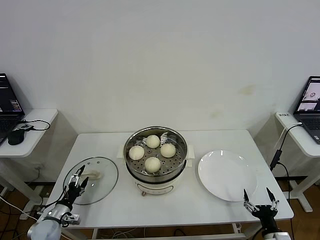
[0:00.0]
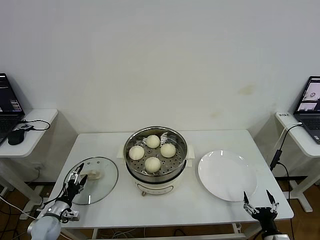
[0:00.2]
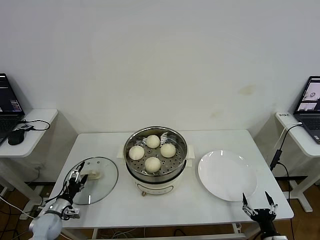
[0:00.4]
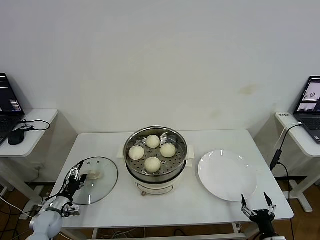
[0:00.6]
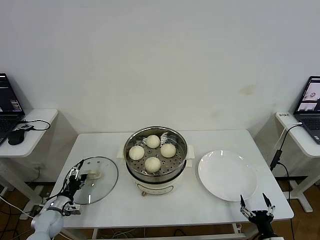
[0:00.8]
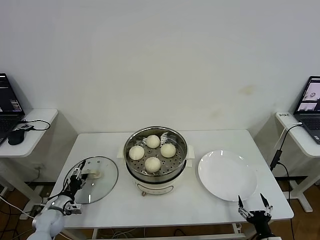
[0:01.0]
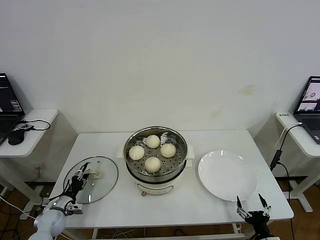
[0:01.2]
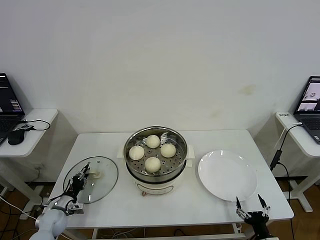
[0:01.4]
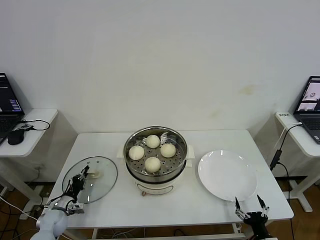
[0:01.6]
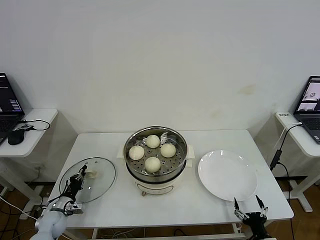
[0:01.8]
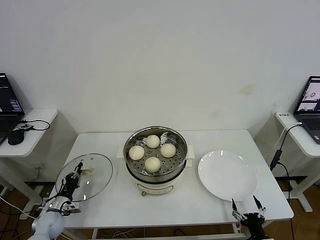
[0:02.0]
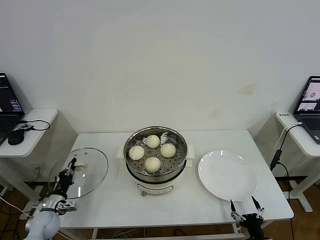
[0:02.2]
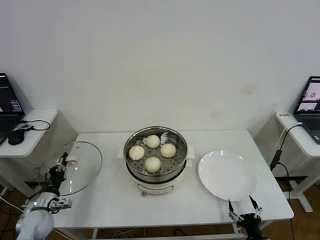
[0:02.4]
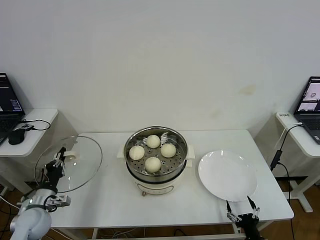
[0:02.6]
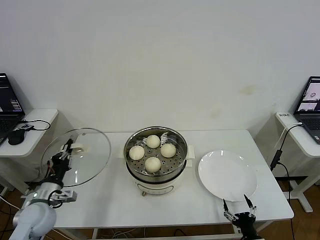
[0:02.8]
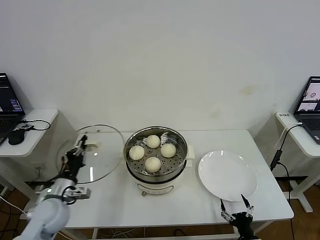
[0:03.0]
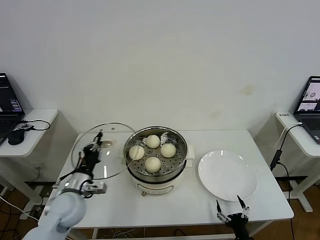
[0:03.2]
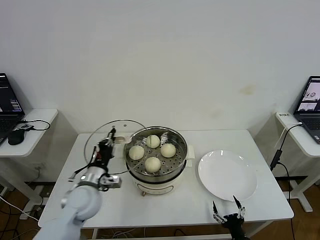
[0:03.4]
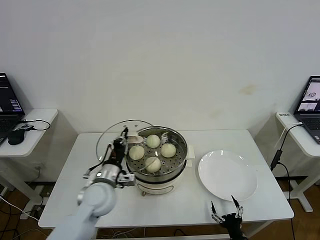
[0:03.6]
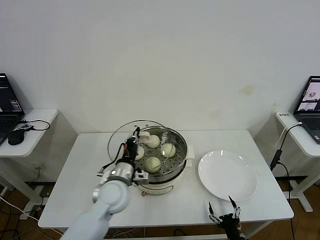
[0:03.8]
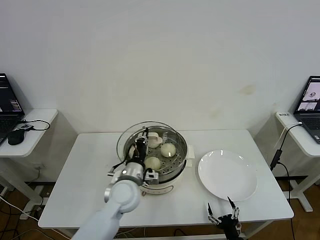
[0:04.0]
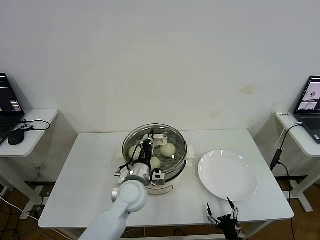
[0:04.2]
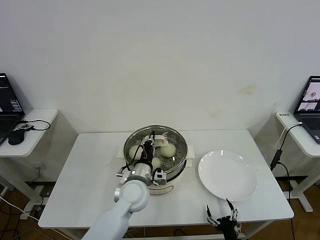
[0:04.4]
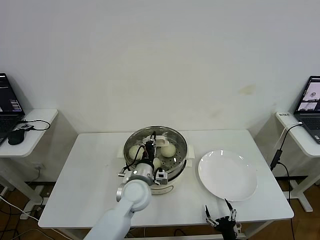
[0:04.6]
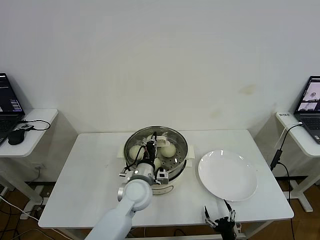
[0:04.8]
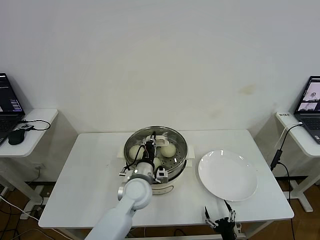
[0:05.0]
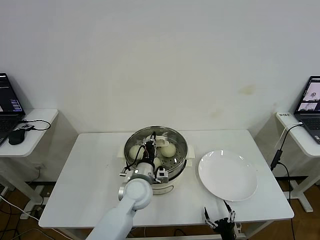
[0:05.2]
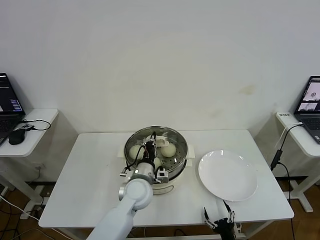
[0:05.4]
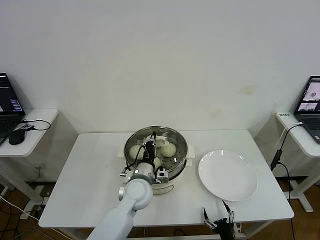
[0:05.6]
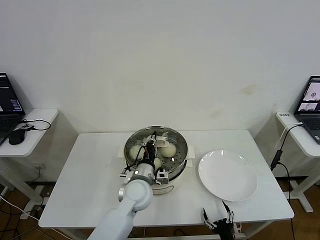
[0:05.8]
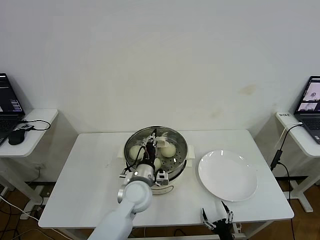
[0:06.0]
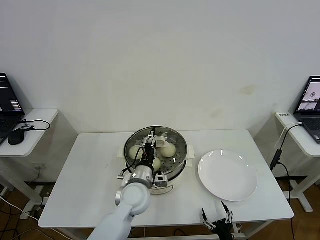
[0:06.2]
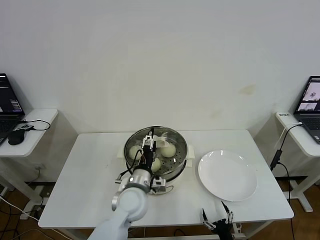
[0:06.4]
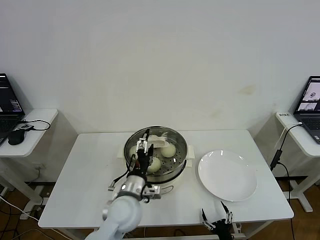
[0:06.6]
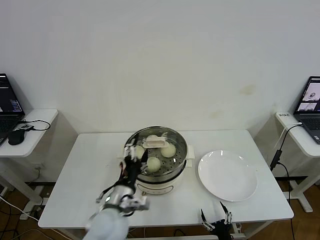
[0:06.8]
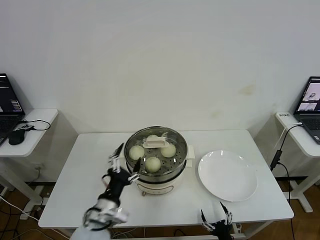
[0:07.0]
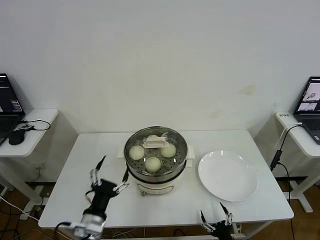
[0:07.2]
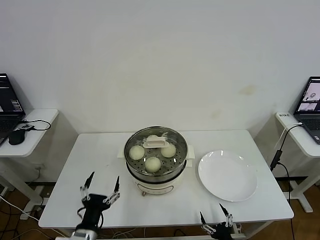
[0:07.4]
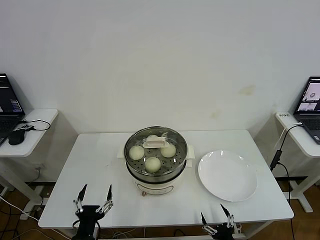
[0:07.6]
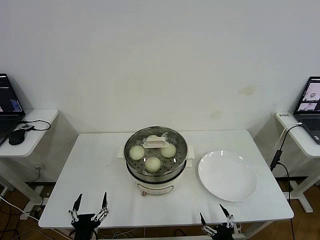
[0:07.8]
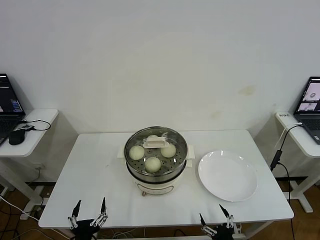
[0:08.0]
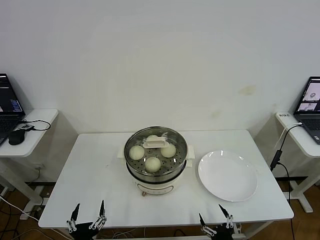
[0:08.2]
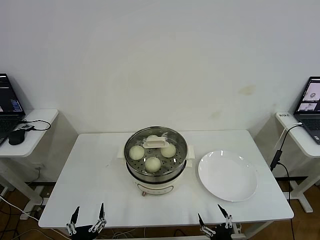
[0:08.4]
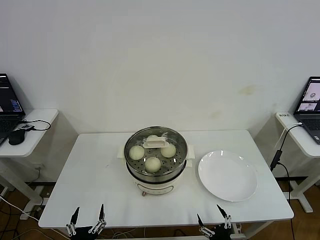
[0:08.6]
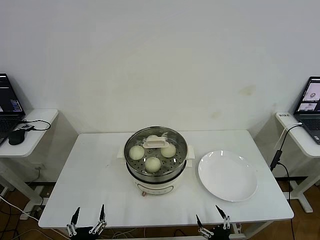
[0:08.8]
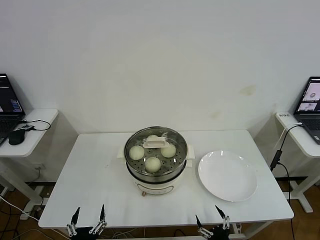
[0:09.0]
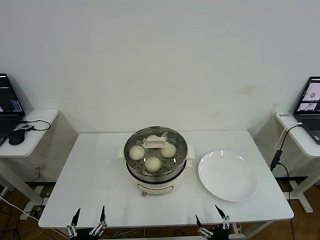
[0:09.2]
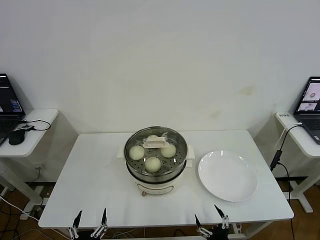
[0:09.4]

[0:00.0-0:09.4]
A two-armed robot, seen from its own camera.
Step, 0:01.8 to 0:06.2: Place the pot lid on the steamer with left gripper.
0:00.0 to 0:01.6: The left gripper moves approximately 5 cm, and closes up.
0:01.6 to 0:03.2: The left gripper moves upward and to the right, approximately 25 cm. Meanwhile the right gripper moves to the left, approximately 5 cm.
0:03.2 to 0:04.8: The left gripper travels to the right by some 20 cm.
0:04.8 to 0:06.2: The left gripper opens up.
0:06.2 to 0:07.8: The left gripper is displaced backward and to the left by about 30 cm, and opens; the right gripper shifts by some 5 cm.
0:07.8 to 0:09.4: The left gripper shifts by about 5 cm.
